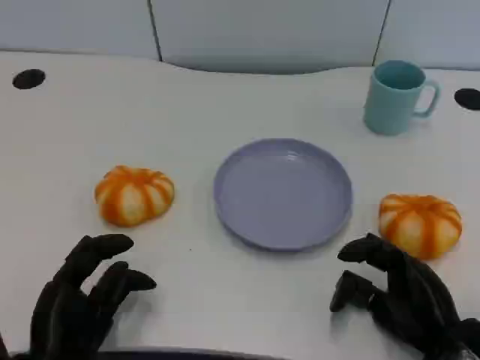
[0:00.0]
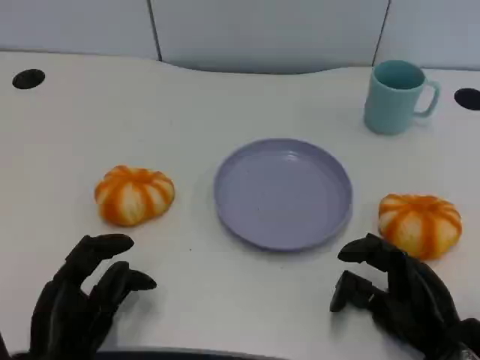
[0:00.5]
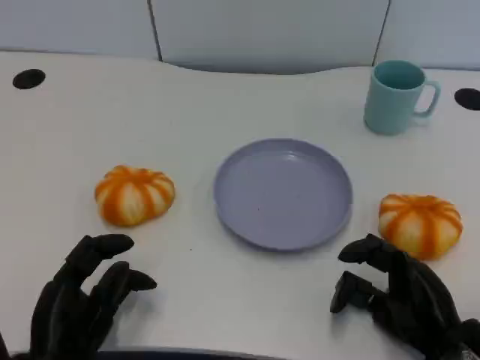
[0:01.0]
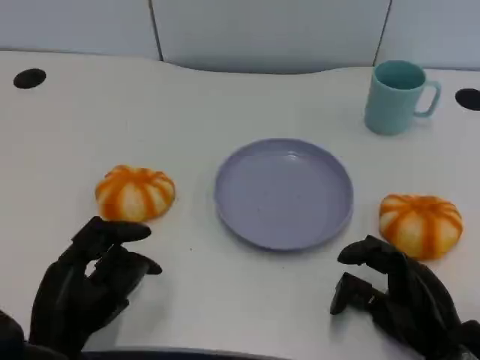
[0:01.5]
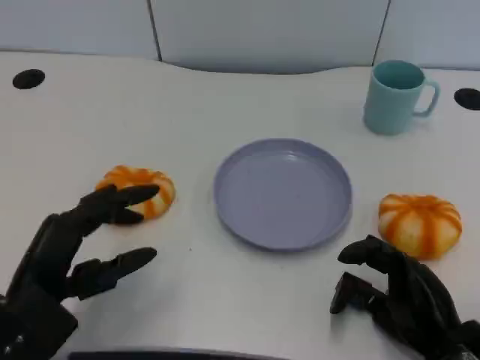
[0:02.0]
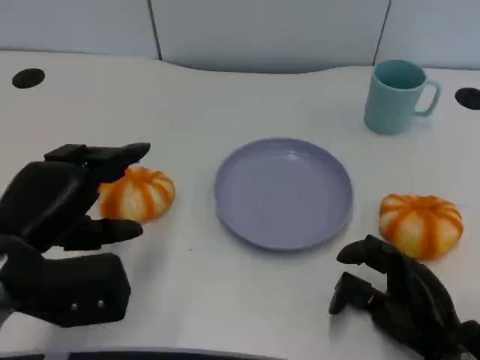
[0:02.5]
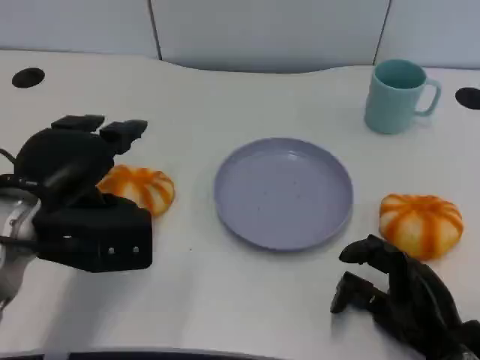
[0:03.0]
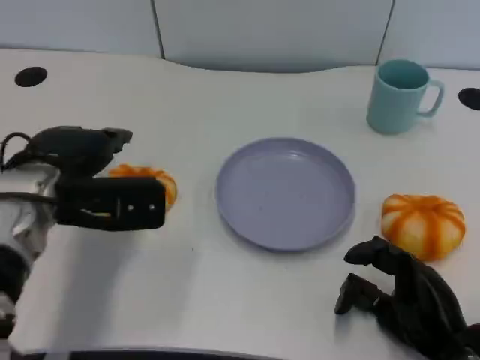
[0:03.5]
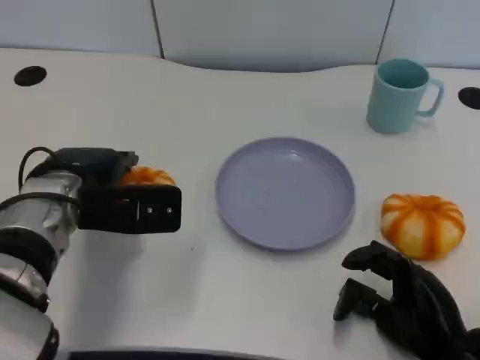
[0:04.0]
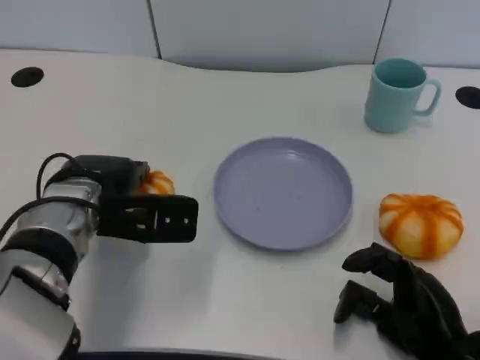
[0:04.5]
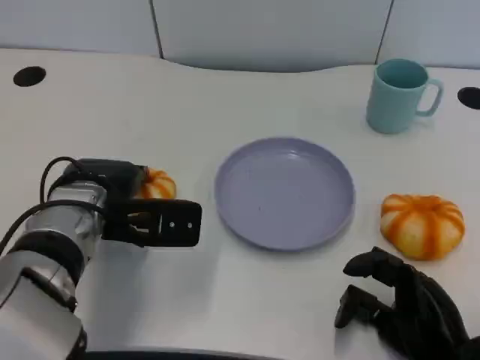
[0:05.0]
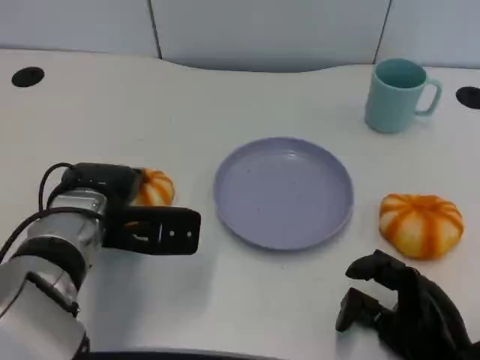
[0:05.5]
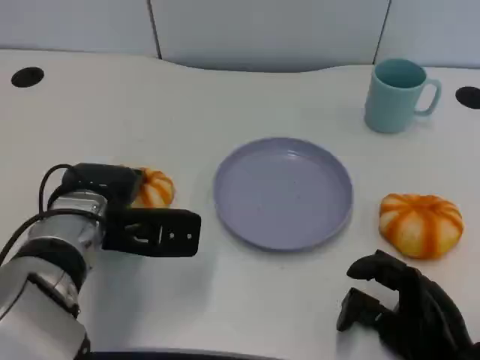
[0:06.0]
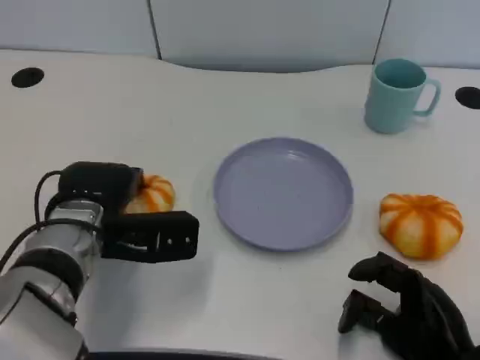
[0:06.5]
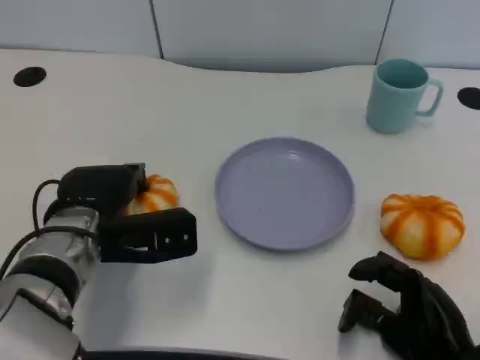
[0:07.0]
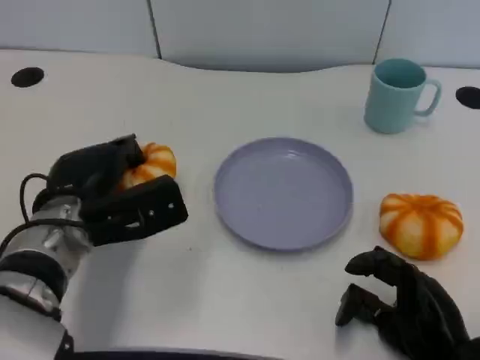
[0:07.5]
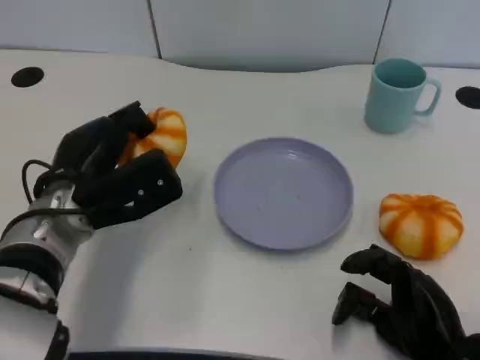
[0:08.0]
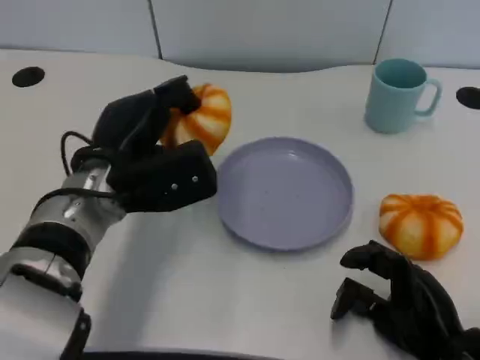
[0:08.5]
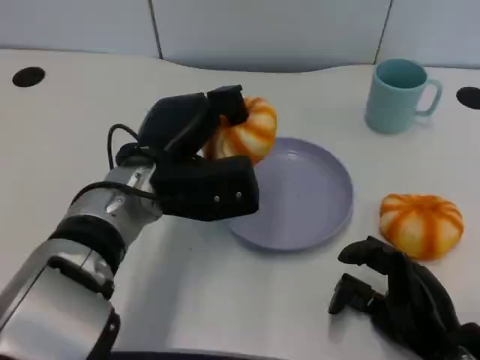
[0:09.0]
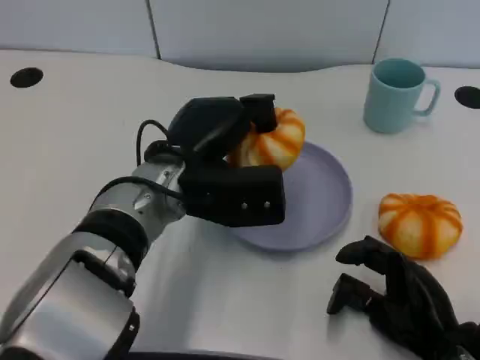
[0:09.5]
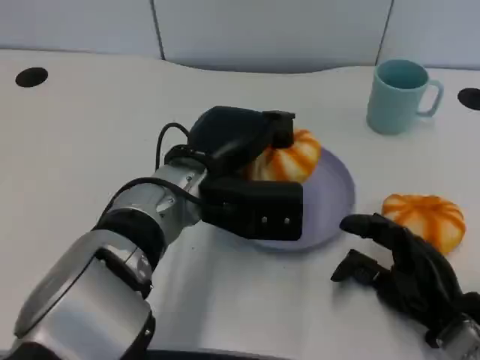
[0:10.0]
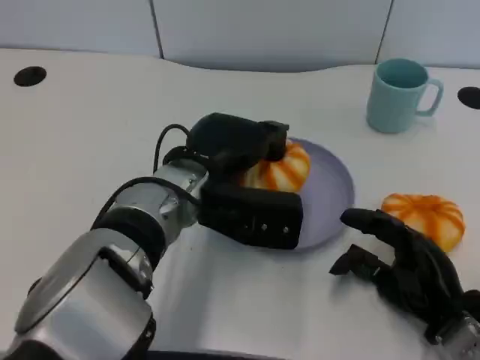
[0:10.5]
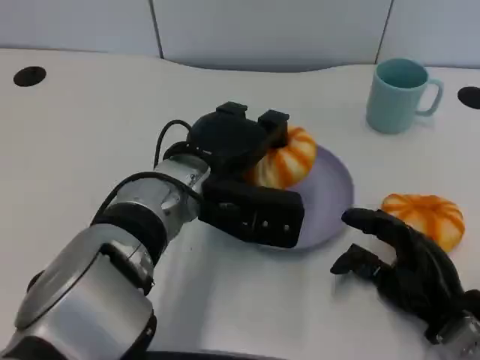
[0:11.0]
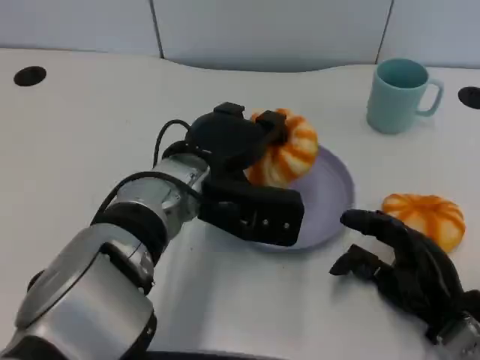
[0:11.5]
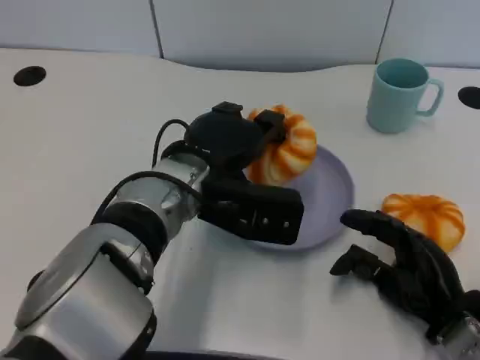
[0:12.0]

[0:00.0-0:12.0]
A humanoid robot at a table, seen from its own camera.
Task of the whole recording: Grasp the bread from the table and place it into the plate.
0:00.0 to 0:02.0: The left hand heads upward, covering approximately 5 cm.
0:02.0 to 0:04.0: The left hand heads forward, covering some 15 cm.
0:04.0 to 0:06.0: The hands move only a little.
0:08.0 to 0:10.0: The left hand moves to the right, approximately 10 cm.
0:10.0 to 0:12.0: The hands make only small movements.

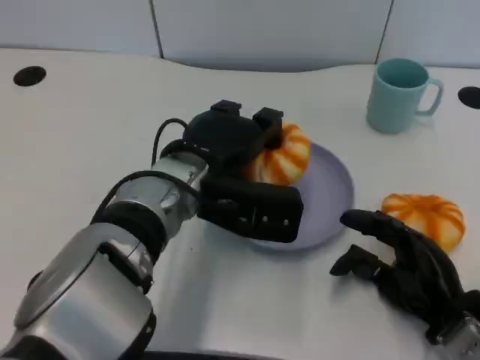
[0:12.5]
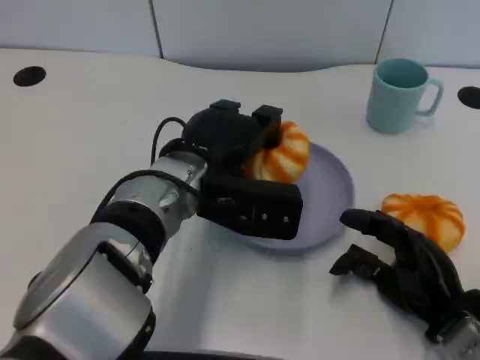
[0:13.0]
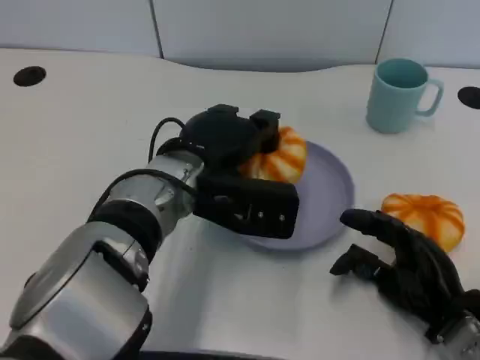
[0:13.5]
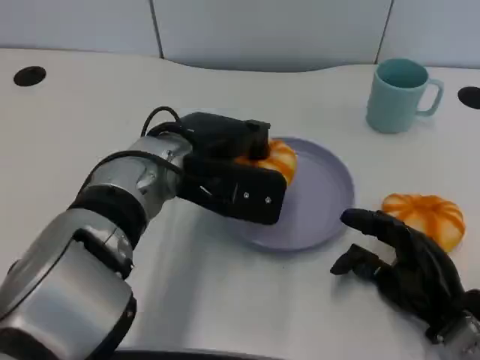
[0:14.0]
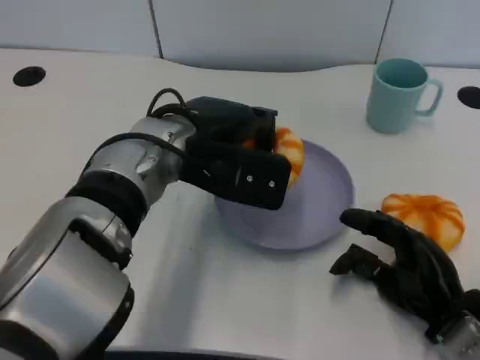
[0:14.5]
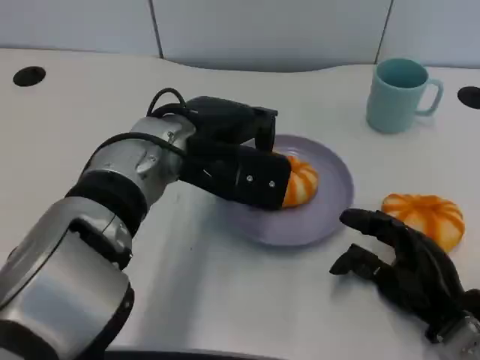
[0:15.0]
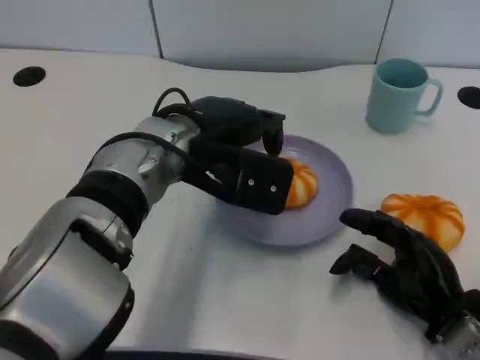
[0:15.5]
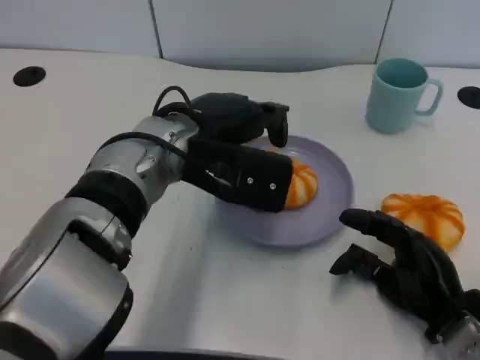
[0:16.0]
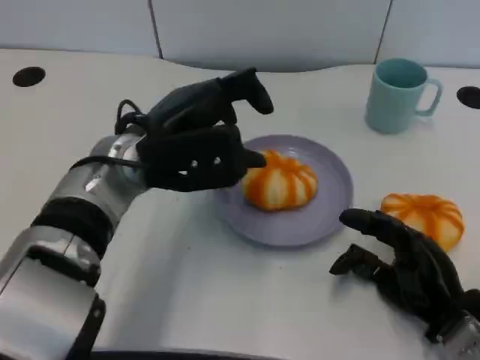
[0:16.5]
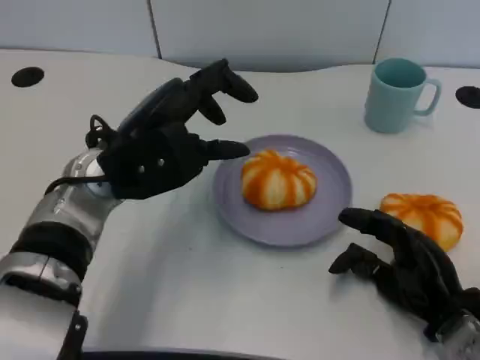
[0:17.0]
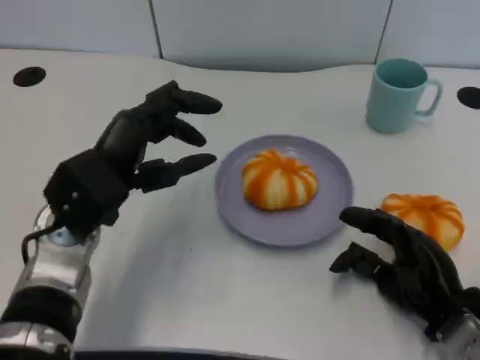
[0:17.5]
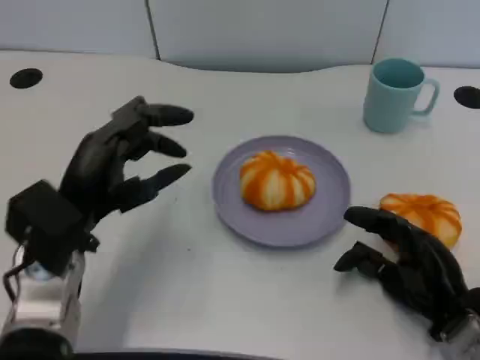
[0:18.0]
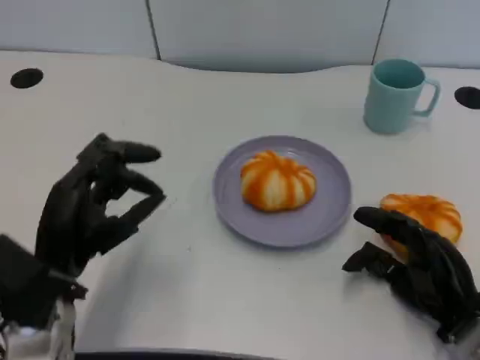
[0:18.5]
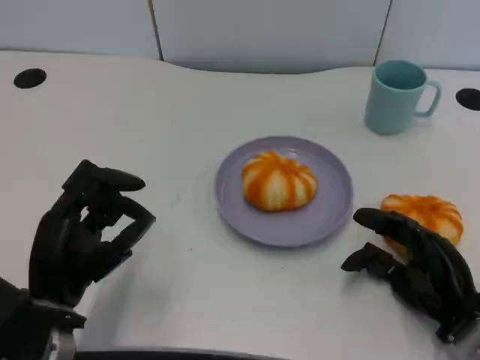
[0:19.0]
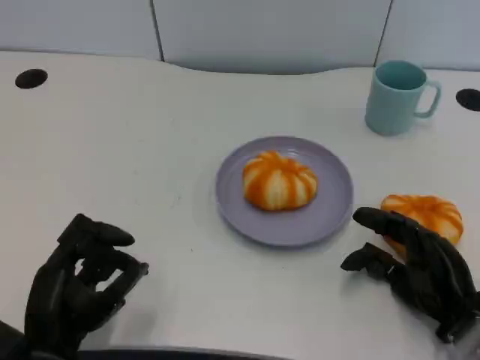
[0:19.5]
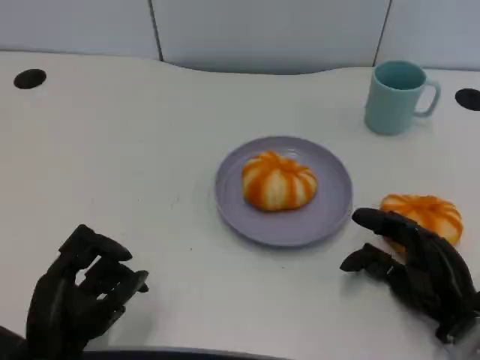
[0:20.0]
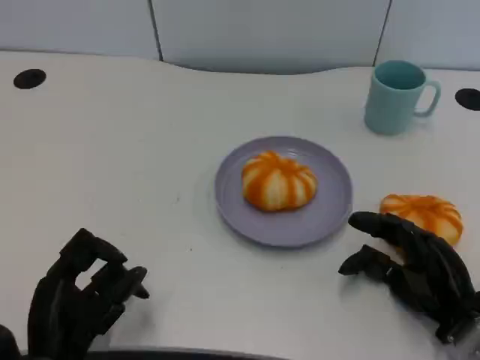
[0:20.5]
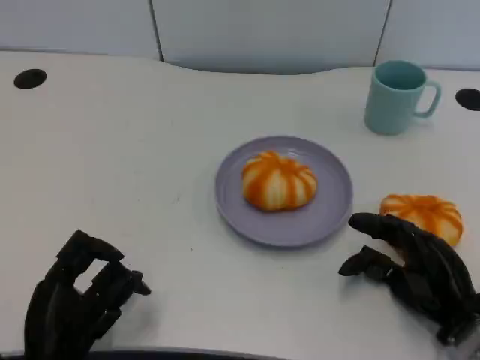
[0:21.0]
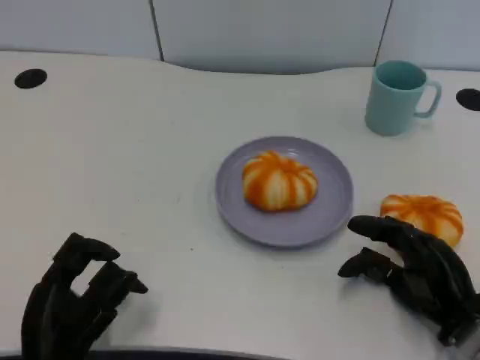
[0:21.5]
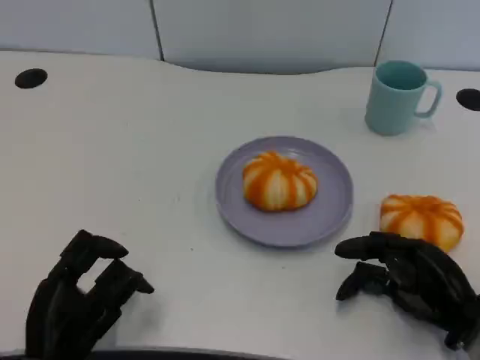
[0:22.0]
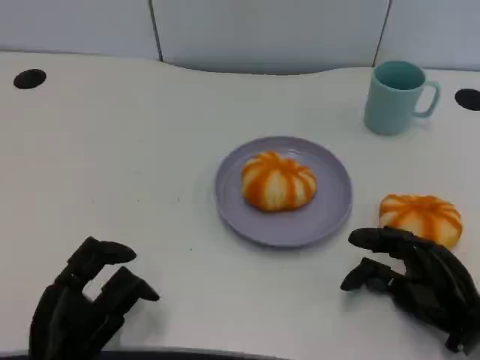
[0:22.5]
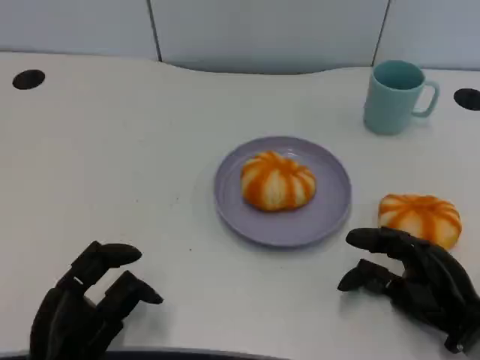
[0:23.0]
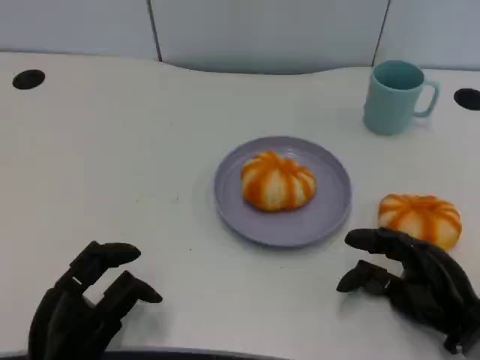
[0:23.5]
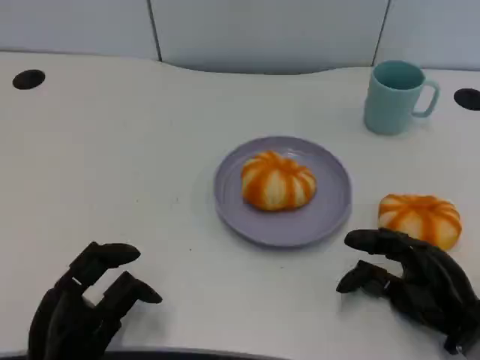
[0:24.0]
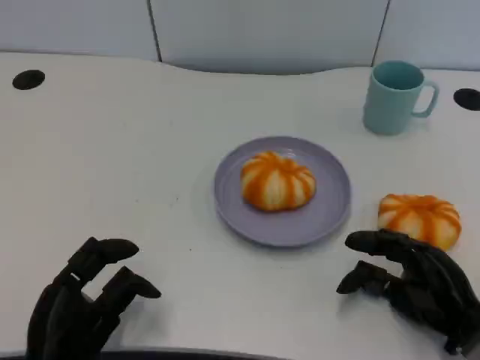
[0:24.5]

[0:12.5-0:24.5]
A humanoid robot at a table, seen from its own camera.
Task of the whole recording: Grasp the bread from the table and place it into the plate.
0:12.5 to 0:14.5: The hands stay close to where they were, moving slightly.
0:16.5 to 0:18.5: The left hand goes some 15 cm backward, to the left and downward.
0:18.5 to 0:20.5: The left hand is displaced backward and downward by approximately 10 cm.
0:20.5 to 0:22.5: The hands stay close to where they were, moving slightly.
0:22.5 to 0:24.5: Both hands stay about where they are.

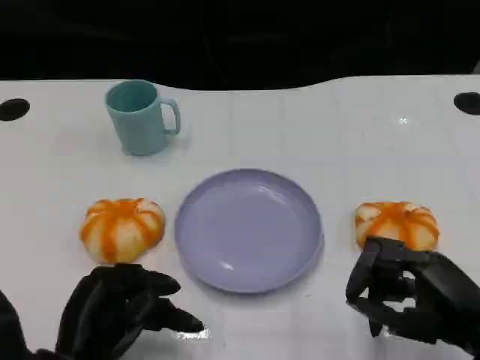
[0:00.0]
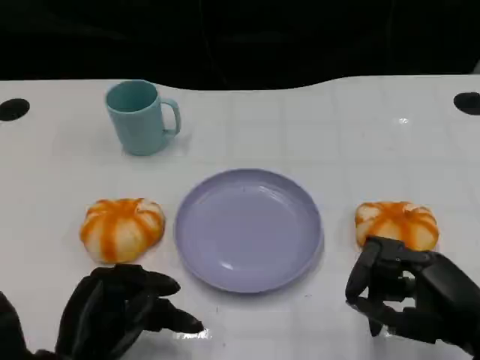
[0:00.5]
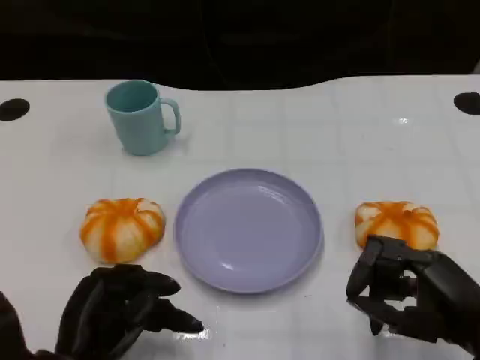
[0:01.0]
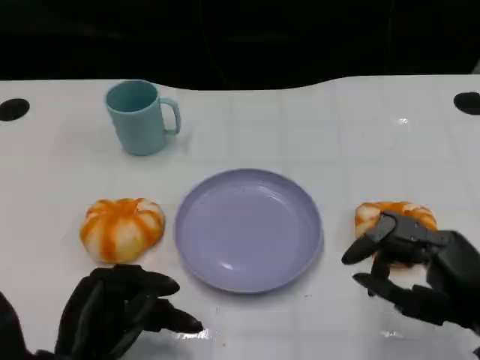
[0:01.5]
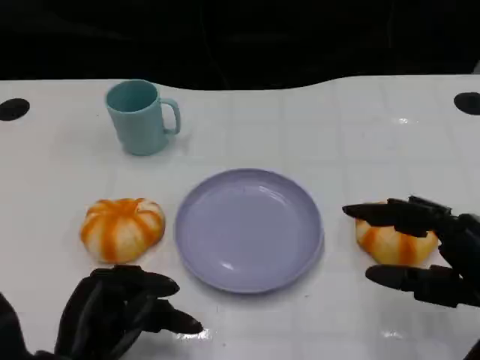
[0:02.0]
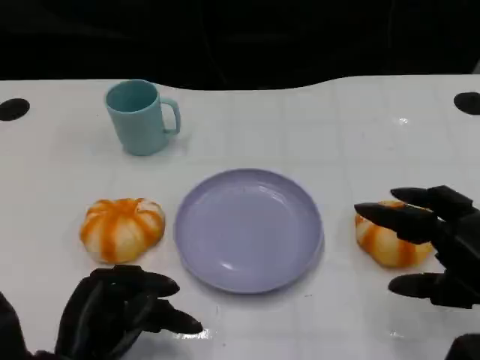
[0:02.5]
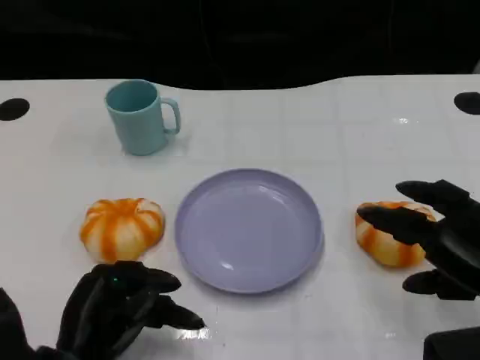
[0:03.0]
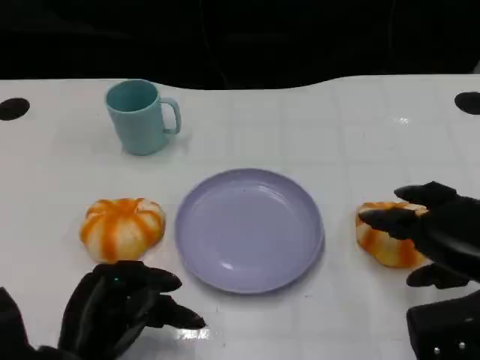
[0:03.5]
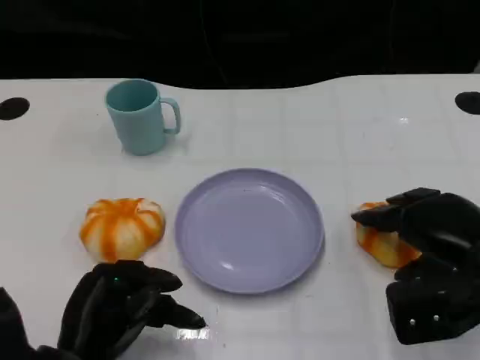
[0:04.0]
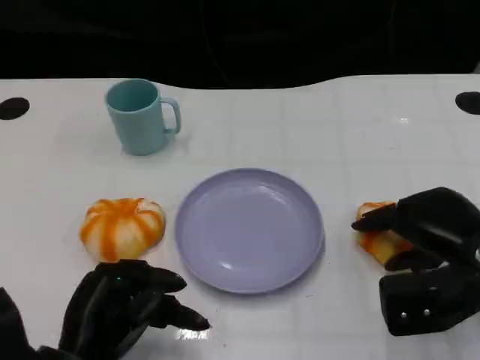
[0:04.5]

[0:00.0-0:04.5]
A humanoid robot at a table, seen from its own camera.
Task of the whole recording: Grasp the bread from the table and place it into the plate.
0:02.0 to 0:04.5: The right hand shifts about 10 cm forward.
